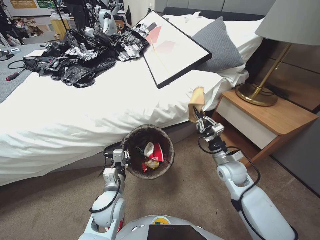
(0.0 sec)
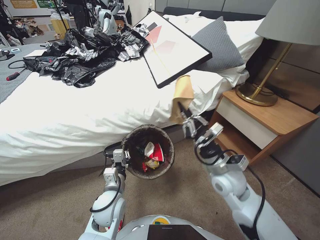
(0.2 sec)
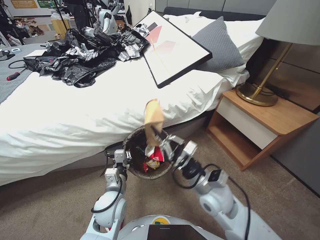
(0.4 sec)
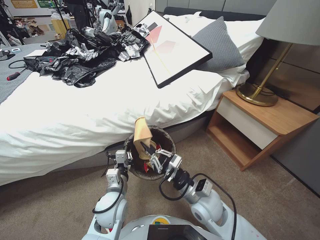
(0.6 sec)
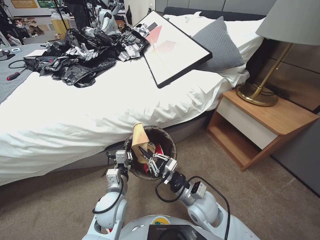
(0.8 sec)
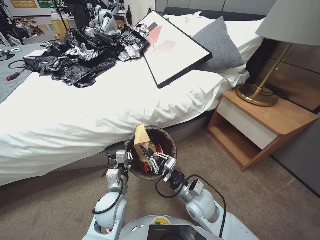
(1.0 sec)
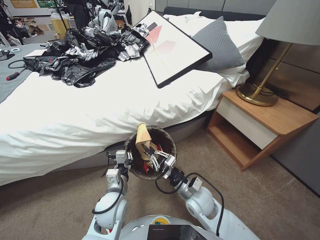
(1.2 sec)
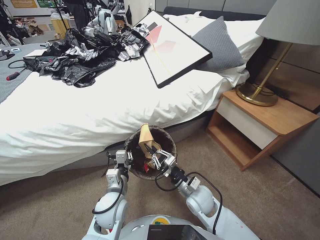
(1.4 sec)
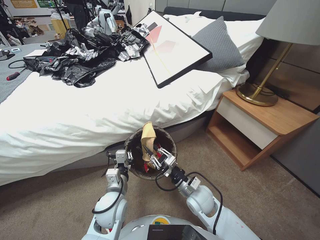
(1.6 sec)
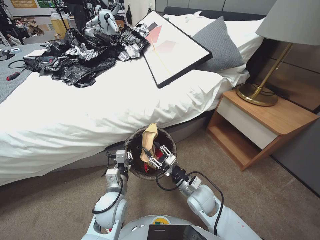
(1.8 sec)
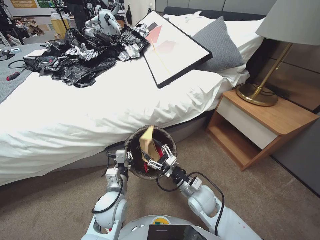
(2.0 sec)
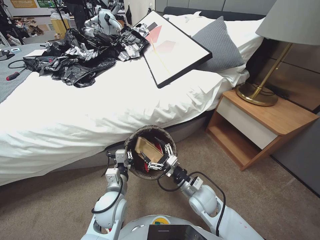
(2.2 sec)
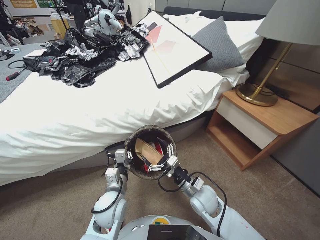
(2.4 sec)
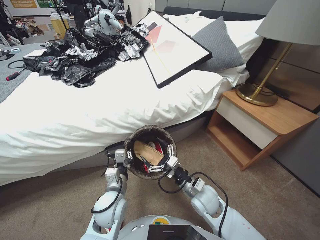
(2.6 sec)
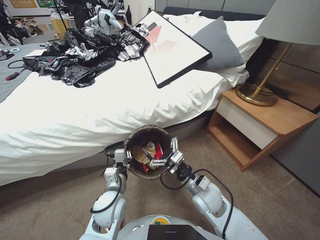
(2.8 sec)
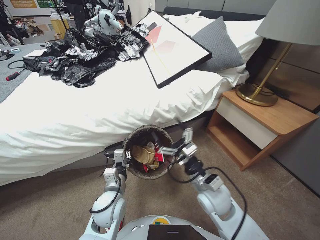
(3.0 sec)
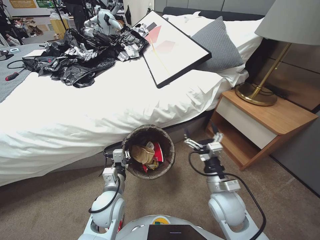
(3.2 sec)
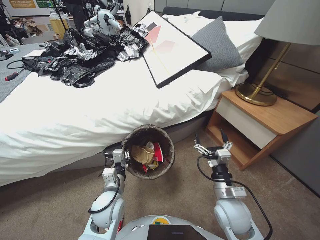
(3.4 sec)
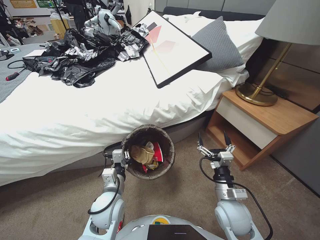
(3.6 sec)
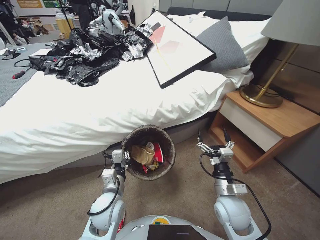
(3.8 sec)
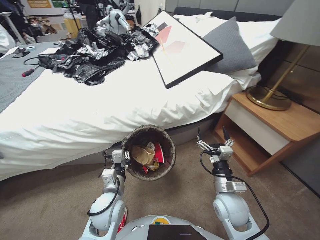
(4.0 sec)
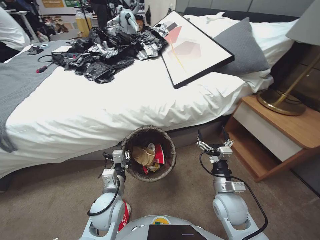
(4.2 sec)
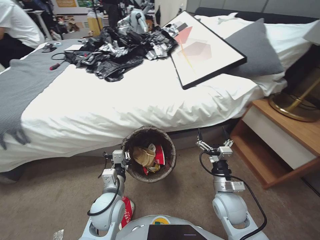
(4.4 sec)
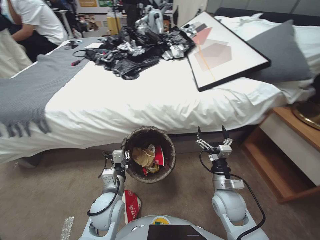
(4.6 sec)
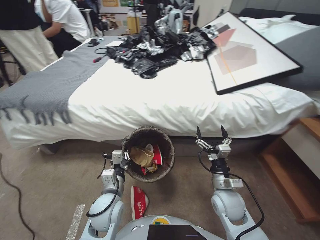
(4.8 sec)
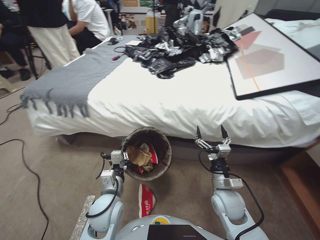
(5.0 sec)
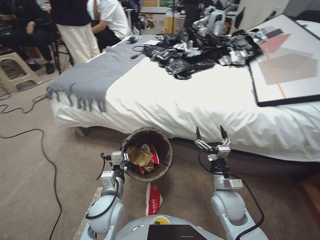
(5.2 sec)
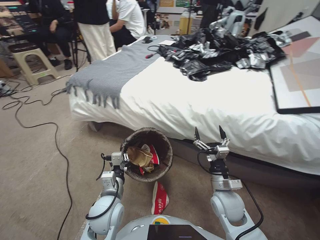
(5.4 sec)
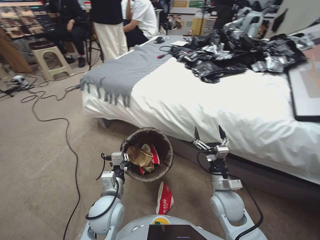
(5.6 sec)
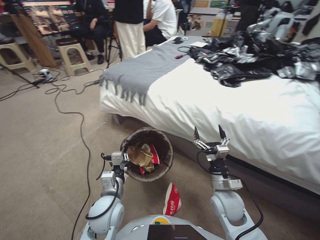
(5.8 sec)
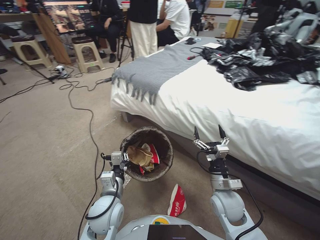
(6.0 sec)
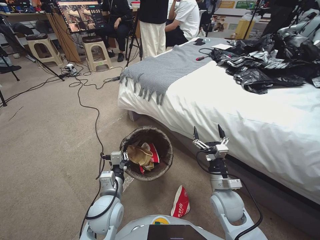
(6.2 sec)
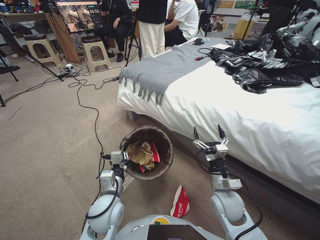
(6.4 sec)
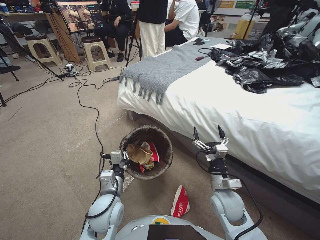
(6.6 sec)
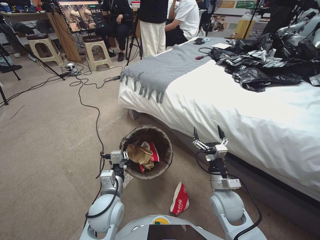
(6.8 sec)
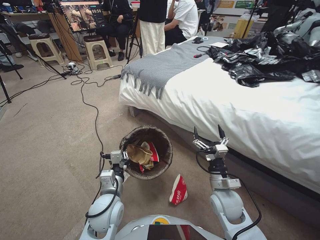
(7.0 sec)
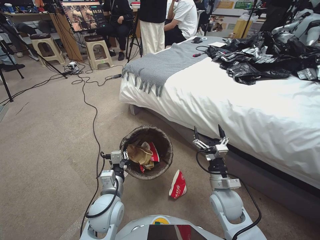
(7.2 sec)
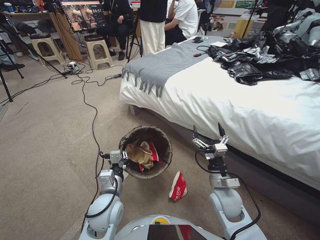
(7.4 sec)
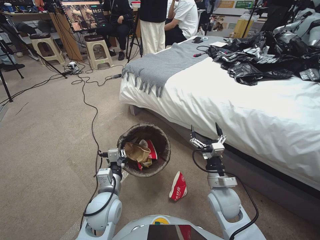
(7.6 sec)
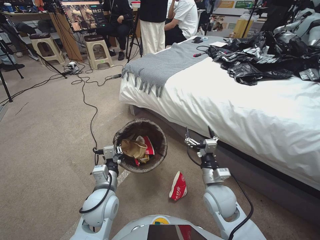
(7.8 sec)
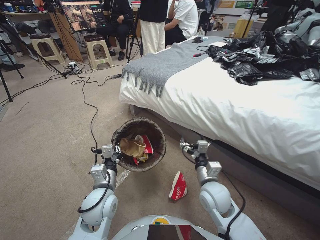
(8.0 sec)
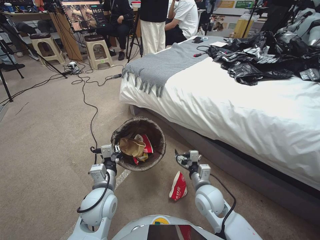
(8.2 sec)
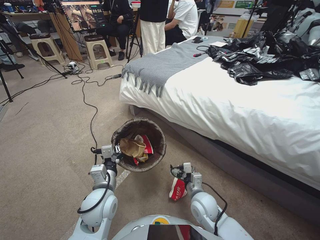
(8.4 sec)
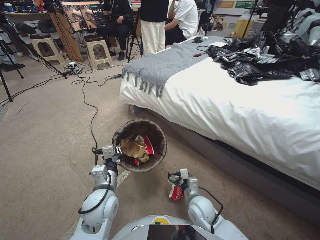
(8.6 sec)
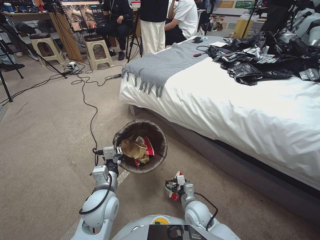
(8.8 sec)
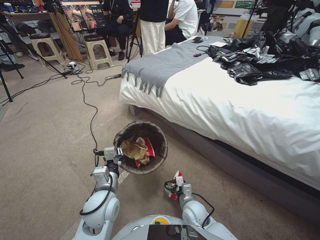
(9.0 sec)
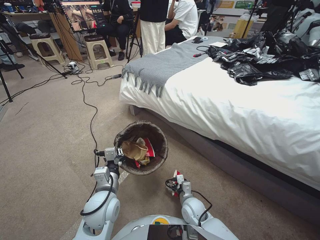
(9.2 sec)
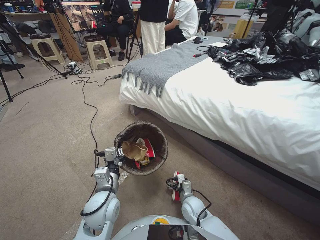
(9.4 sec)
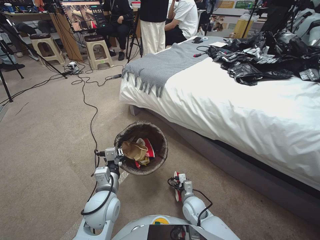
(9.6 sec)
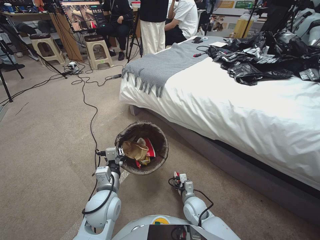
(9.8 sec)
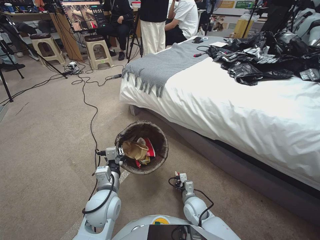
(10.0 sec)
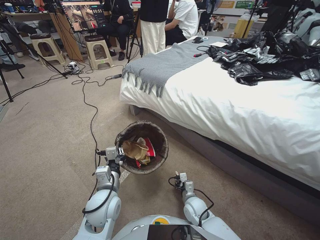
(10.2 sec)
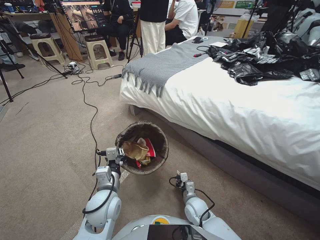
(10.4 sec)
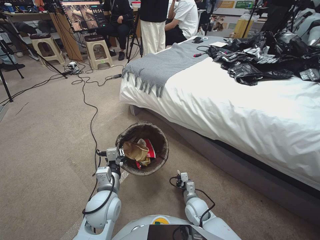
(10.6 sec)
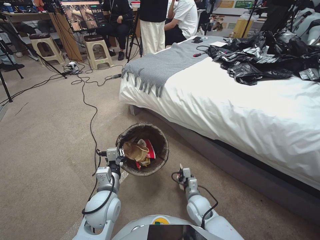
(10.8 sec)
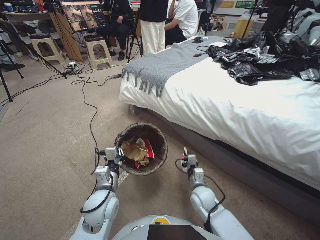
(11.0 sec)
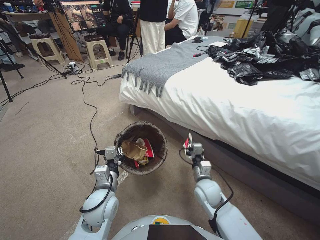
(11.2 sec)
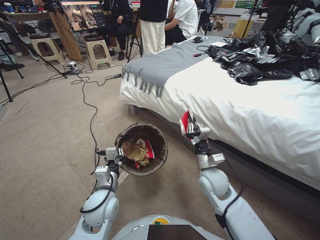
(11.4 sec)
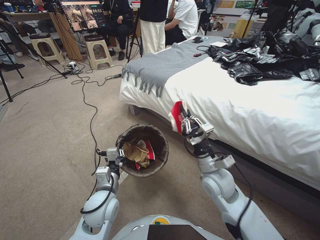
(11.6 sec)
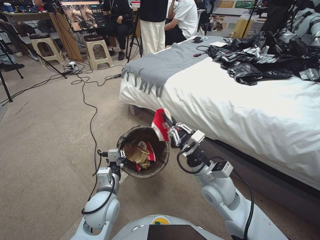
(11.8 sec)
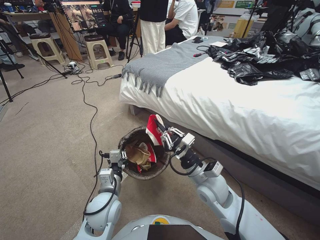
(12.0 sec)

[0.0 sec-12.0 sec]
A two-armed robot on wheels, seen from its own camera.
Task of the whole recording: Pick up the trash bin, then pick up the garbage from the floor and place it into the trash bin.
0.0 sec to 1.6 sec: The right gripper heads to the left and backward, covering approximately 20 cm.
1.6 sec to 3.0 sec: The right gripper goes approximately 5 cm upward, and opens its fingers.
3.0 sec to 4.4 sec: The right gripper moves to the right, about 5 cm.
7.6 sec to 9.0 sec: The right gripper travels downward and to the left by about 15 cm.
9.0 sec to 10.4 sec: The right gripper moves approximately 5 cm, and closes.
10.4 sec to 12.0 sec: The right gripper heads upward, covering roughly 25 cm.

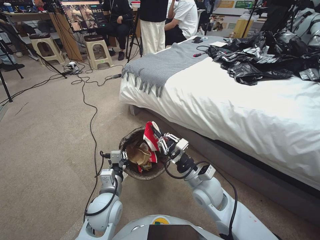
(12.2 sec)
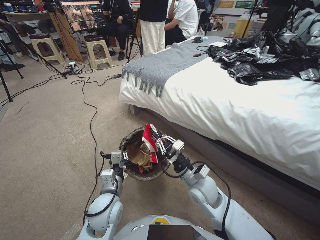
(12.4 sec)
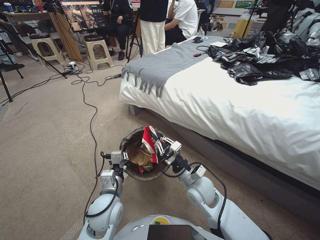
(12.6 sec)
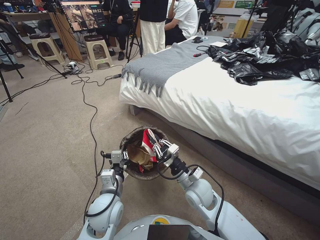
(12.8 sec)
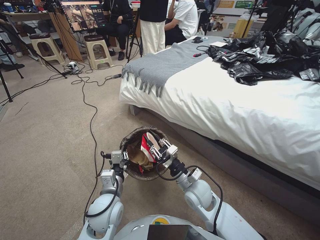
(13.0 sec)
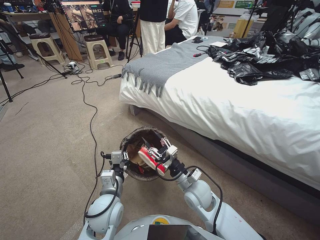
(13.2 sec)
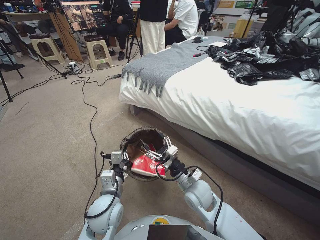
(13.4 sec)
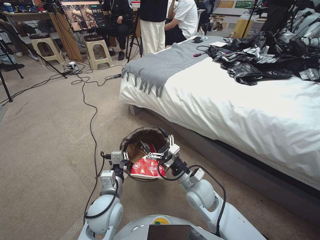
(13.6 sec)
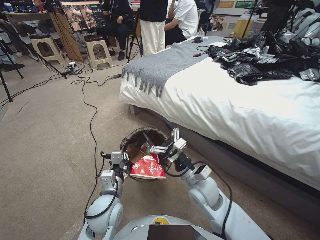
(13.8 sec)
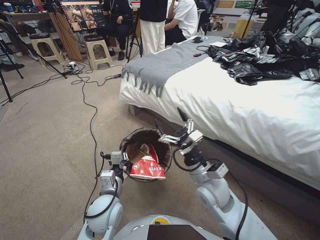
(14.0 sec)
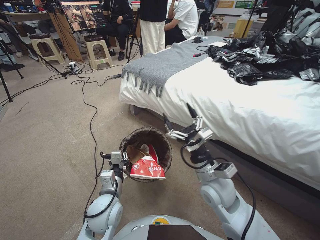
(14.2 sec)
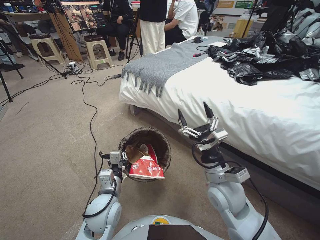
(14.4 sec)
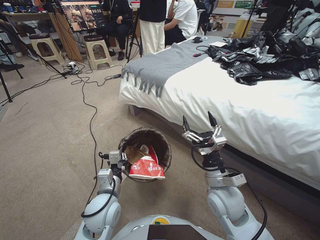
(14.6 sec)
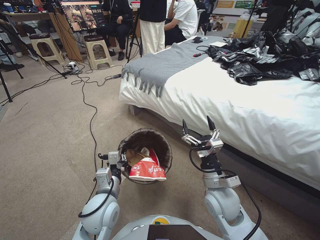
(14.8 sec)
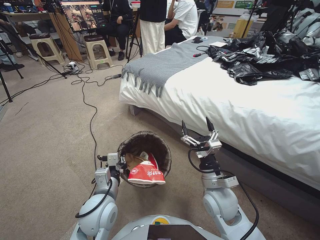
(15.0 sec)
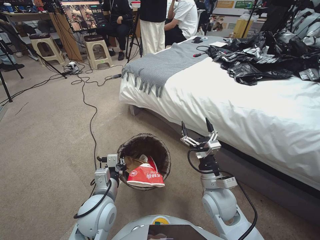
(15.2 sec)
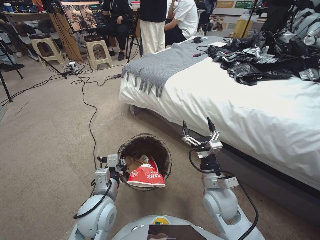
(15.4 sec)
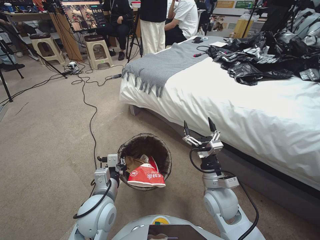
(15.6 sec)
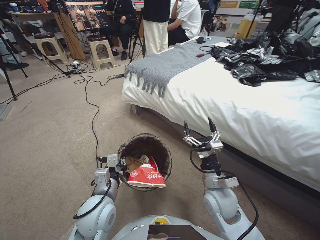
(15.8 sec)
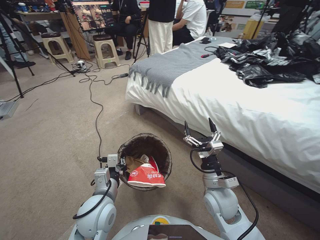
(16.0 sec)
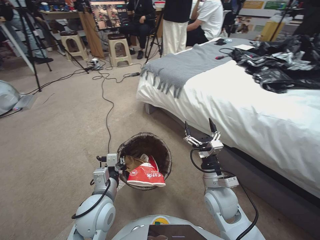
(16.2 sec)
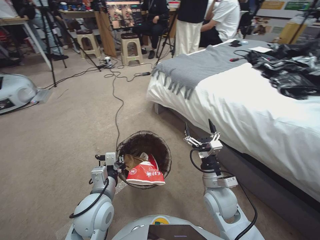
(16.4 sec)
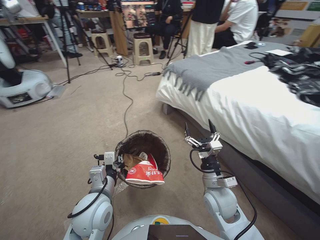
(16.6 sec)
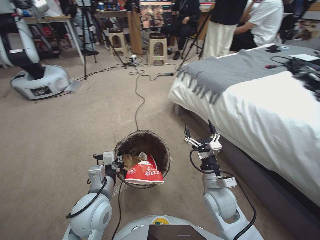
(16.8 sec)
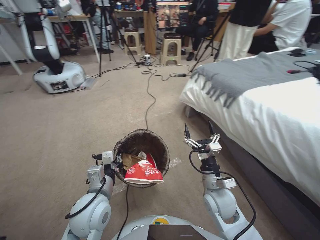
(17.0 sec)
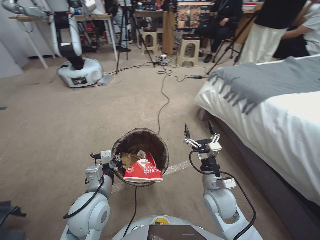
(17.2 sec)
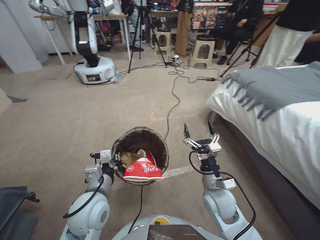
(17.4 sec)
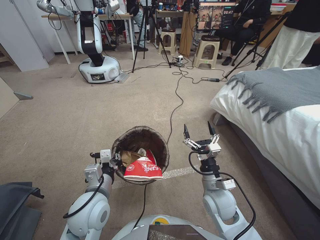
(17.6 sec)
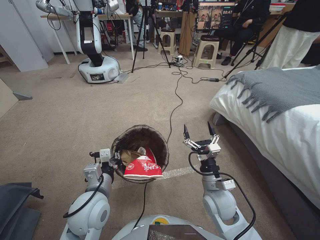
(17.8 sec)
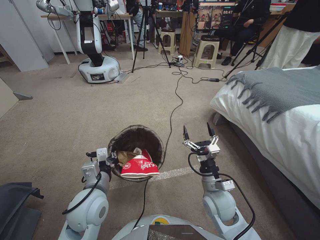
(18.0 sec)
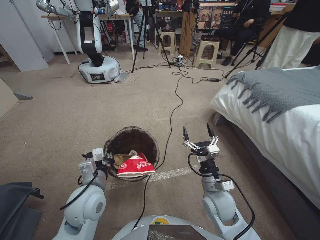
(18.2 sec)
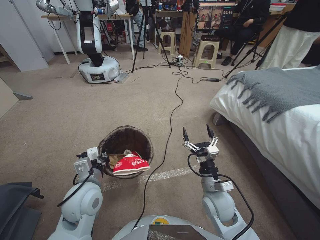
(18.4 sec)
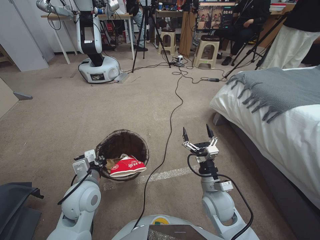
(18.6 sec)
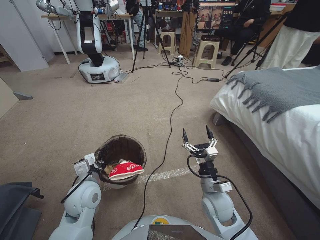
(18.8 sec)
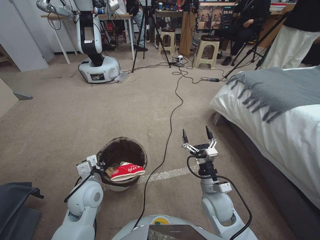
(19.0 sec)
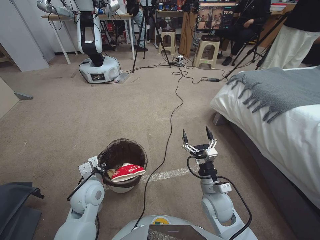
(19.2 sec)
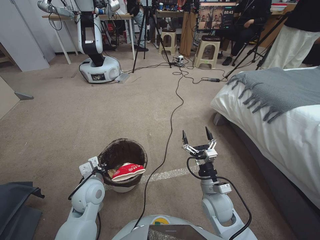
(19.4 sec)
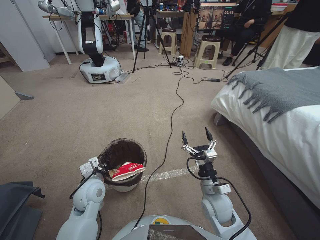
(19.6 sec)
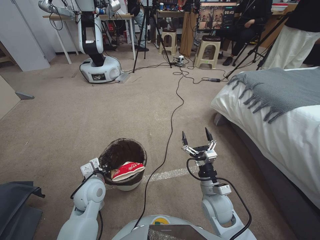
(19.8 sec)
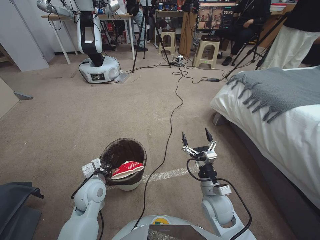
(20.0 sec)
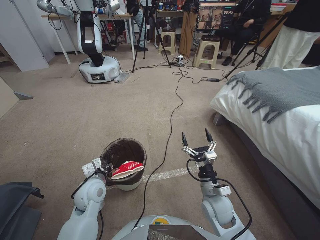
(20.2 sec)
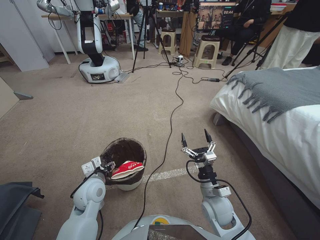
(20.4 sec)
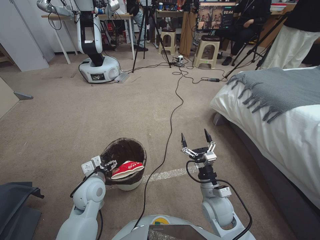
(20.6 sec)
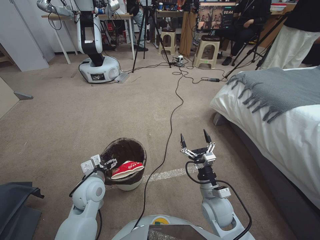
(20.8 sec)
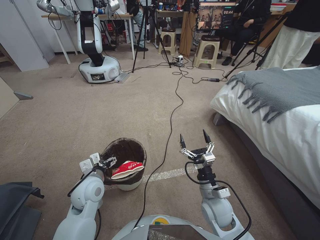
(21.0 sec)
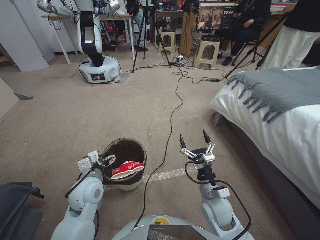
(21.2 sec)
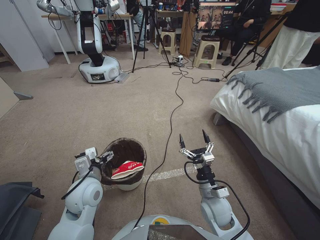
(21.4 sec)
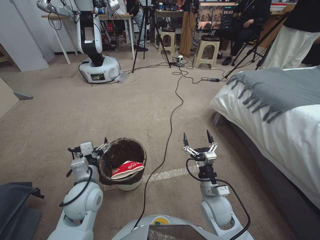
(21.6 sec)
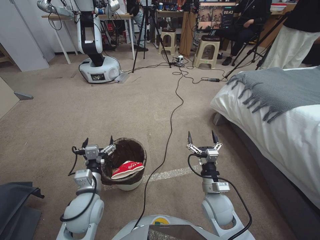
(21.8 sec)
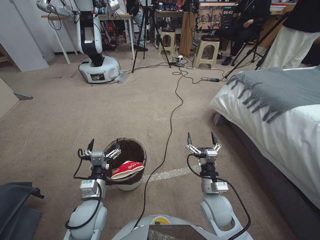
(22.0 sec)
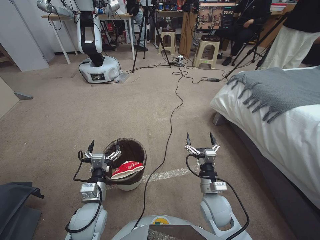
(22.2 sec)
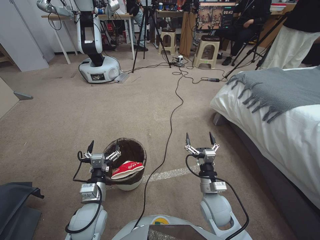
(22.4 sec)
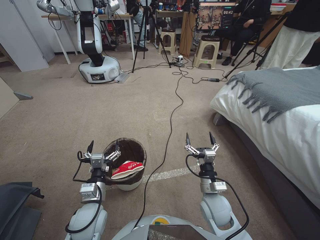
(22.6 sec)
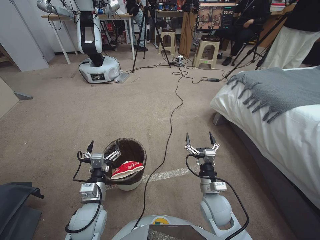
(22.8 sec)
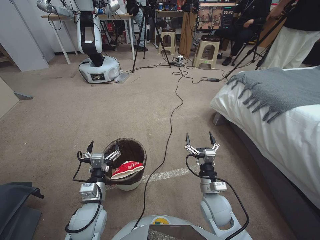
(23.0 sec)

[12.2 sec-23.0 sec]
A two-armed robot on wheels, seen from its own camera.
Task of the whole recording: Pick up the trash bin, then pick up the garbage from the floor and place it into the trash bin.
12.2 sec to 13.8 sec: The right gripper is displaced downward by some 5 cm, and opens up.
13.8 sec to 15.2 sec: The right gripper travels upward and back again, roughly 10 cm each way.
18.4 sec to 20.0 sec: The left gripper heads downward and forward, covering about 10 cm.
20.0 sec to 21.4 sec: The left gripper opens its fingers.
21.4 sec to 23.0 sec: The left gripper travels backward by some 5 cm.
